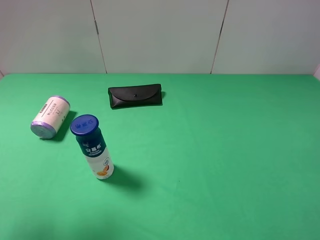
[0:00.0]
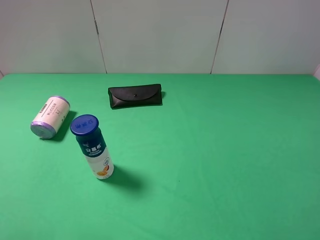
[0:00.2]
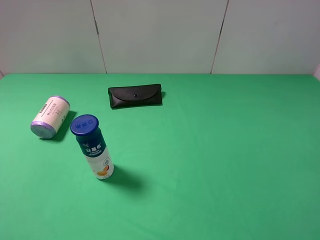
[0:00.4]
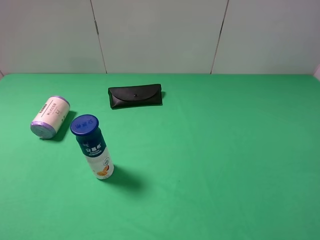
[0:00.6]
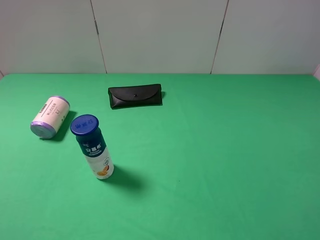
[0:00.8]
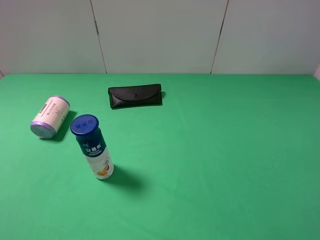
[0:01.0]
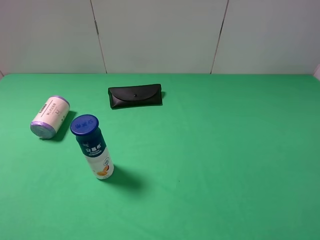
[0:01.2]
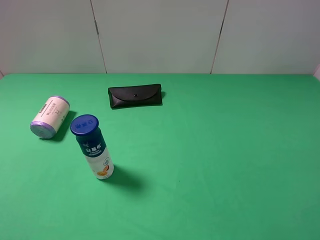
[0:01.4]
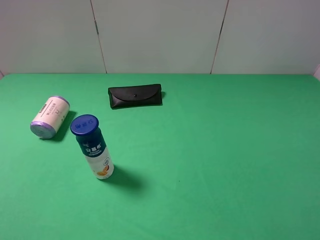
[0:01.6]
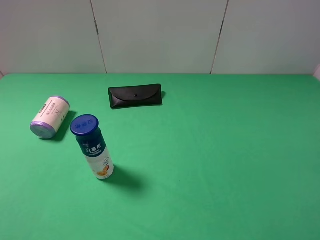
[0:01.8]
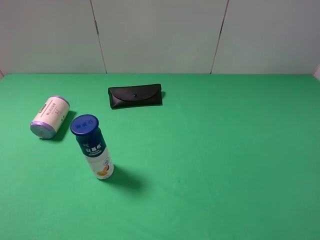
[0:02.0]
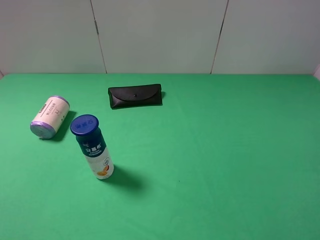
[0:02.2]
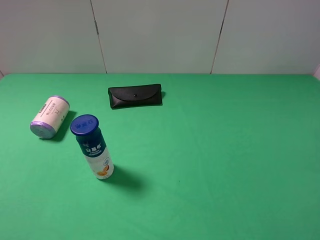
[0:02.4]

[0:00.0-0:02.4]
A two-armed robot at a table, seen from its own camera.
Task of the whole recording: use the right gripper to pick up the item and transfer it from the right gripper to the left gripper.
0:00.0 to 0:01.2: The left gripper heads backward and downward, covering approximately 15 cm.
0:01.2 to 0:02.4: The two grippers keep their place.
